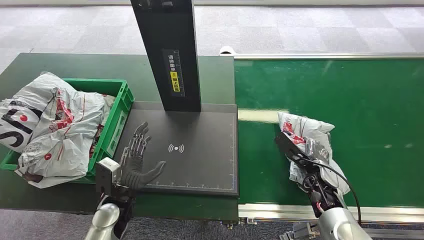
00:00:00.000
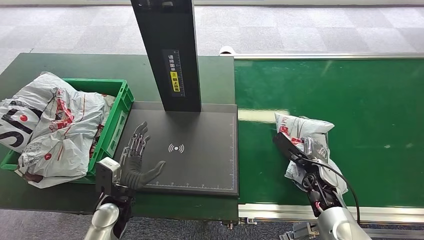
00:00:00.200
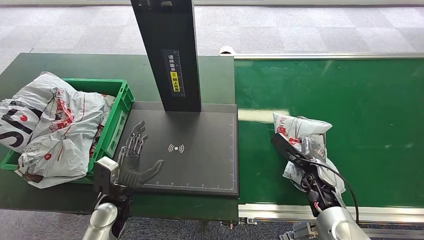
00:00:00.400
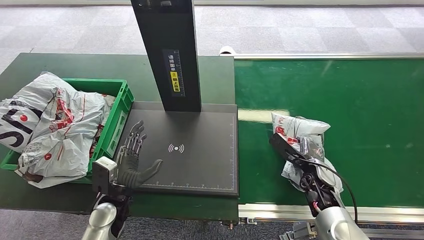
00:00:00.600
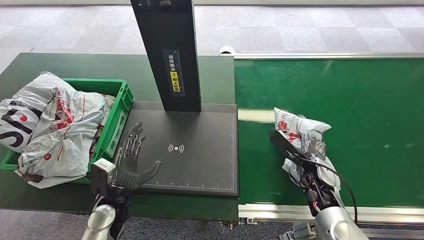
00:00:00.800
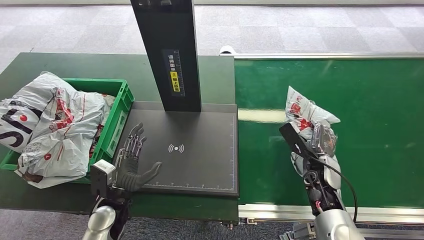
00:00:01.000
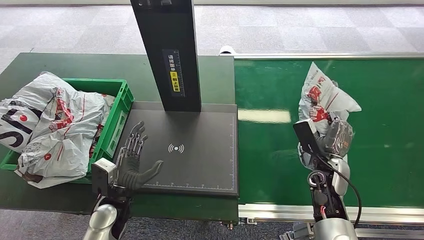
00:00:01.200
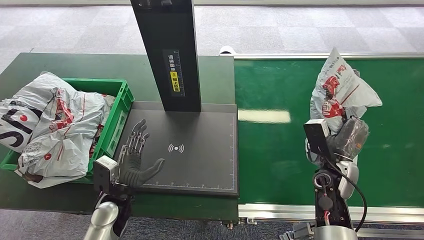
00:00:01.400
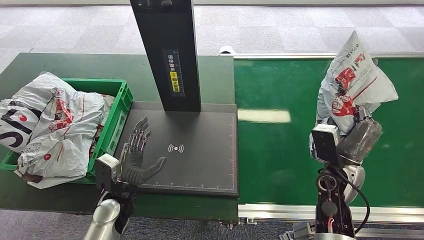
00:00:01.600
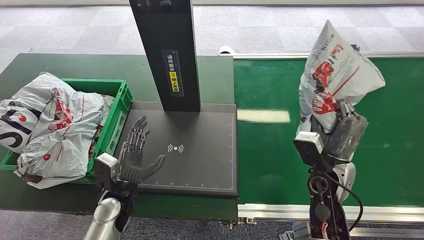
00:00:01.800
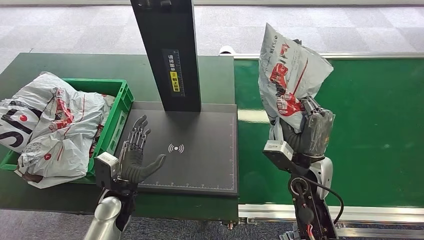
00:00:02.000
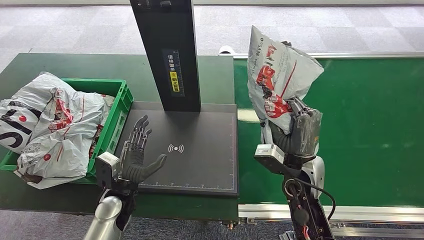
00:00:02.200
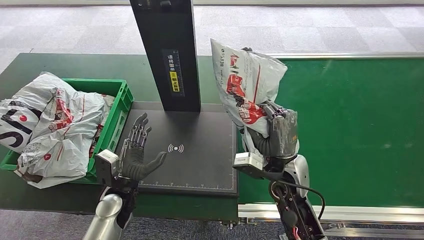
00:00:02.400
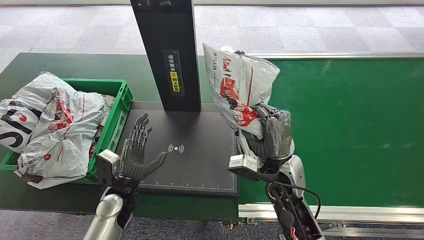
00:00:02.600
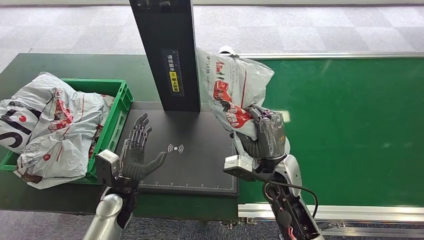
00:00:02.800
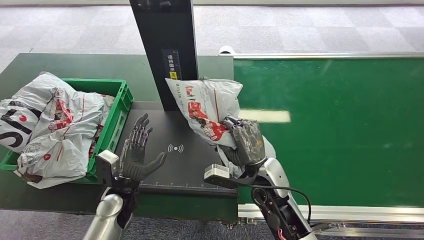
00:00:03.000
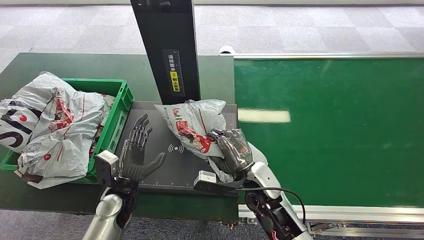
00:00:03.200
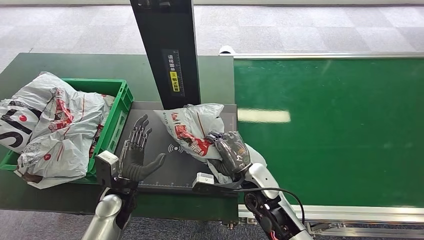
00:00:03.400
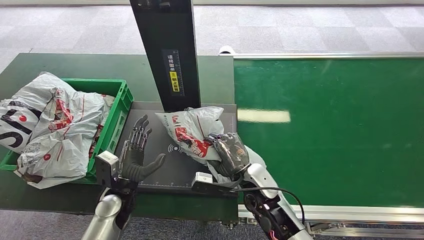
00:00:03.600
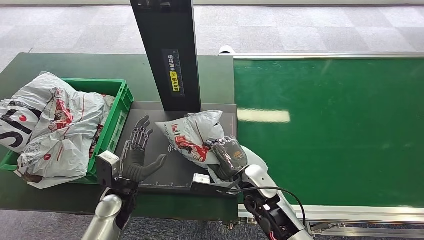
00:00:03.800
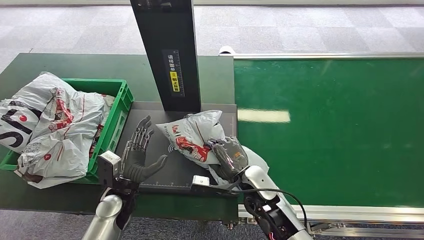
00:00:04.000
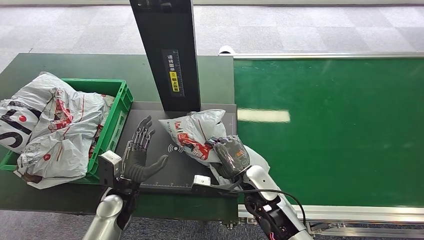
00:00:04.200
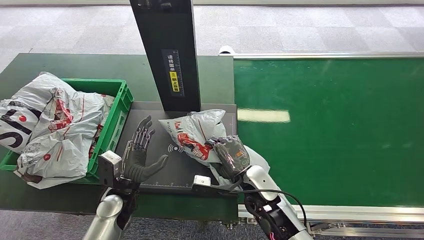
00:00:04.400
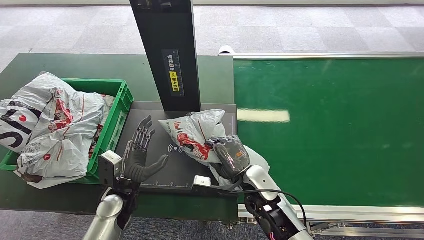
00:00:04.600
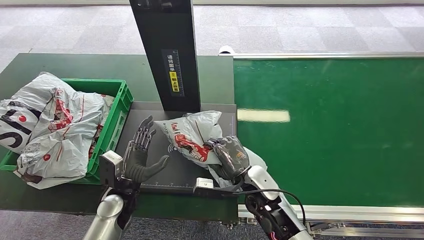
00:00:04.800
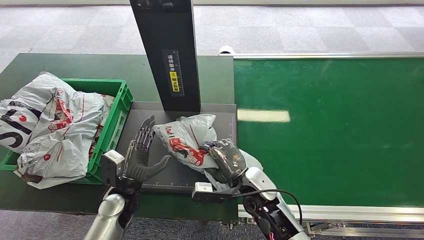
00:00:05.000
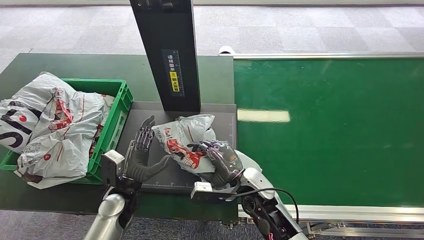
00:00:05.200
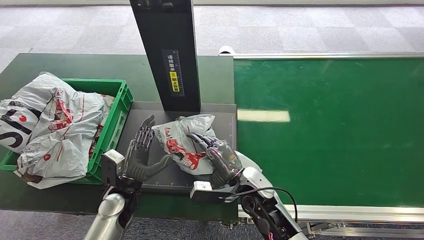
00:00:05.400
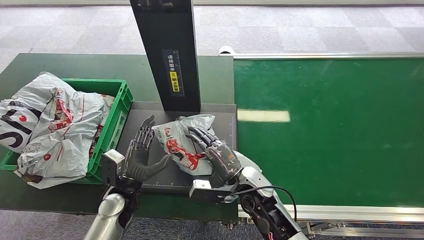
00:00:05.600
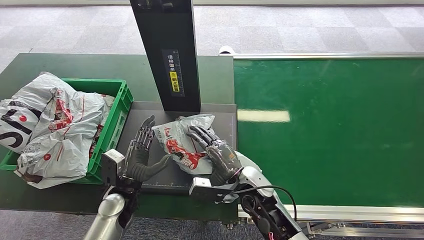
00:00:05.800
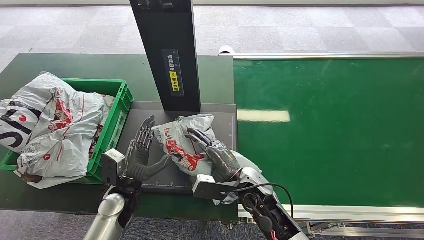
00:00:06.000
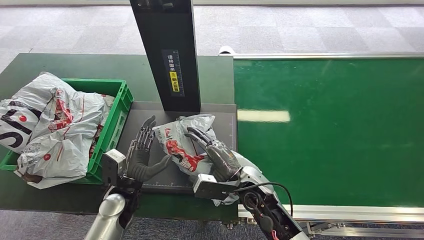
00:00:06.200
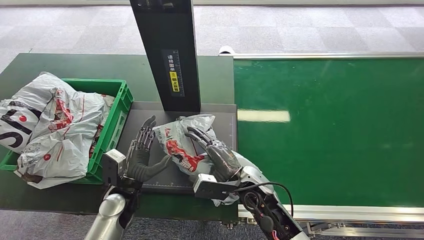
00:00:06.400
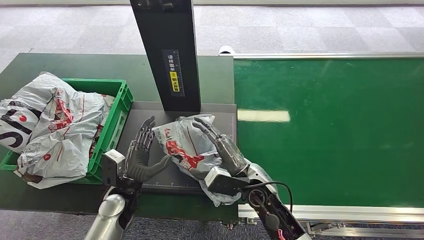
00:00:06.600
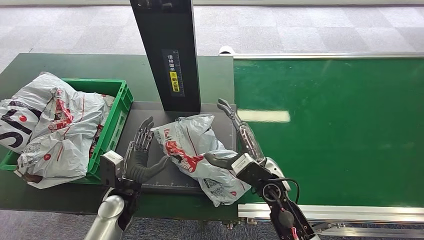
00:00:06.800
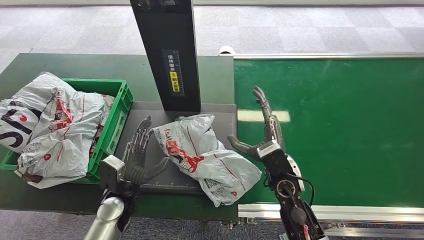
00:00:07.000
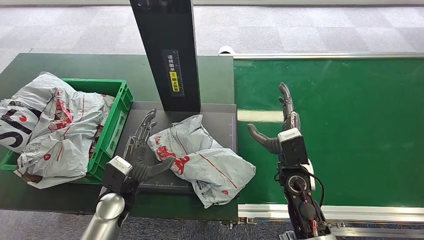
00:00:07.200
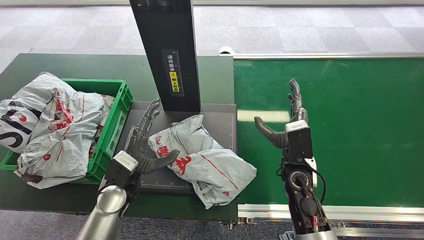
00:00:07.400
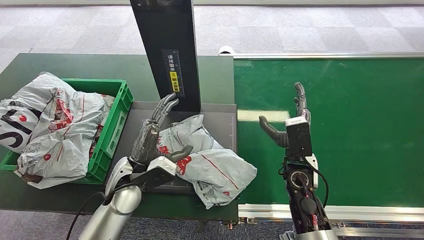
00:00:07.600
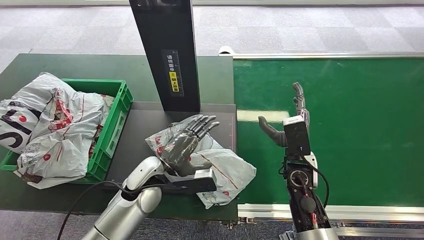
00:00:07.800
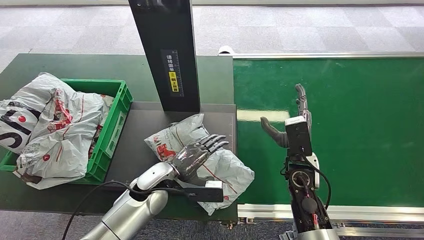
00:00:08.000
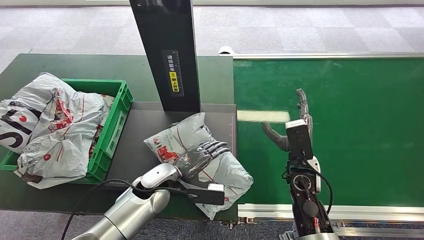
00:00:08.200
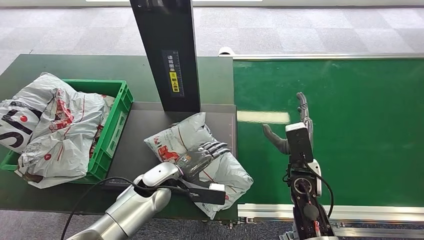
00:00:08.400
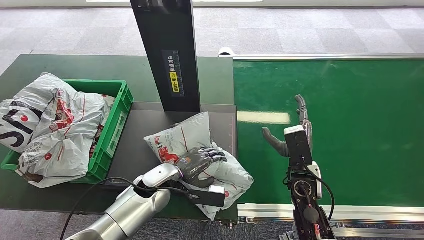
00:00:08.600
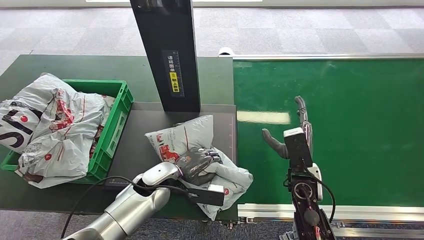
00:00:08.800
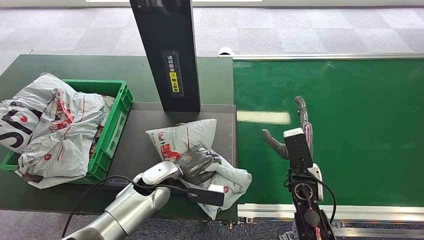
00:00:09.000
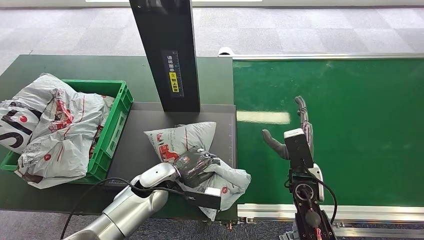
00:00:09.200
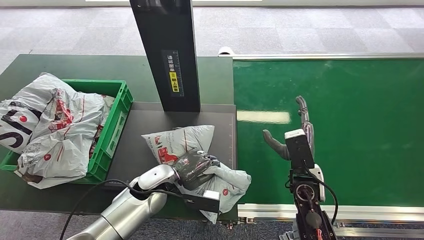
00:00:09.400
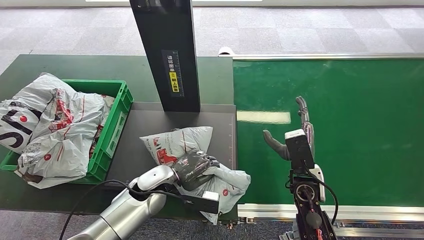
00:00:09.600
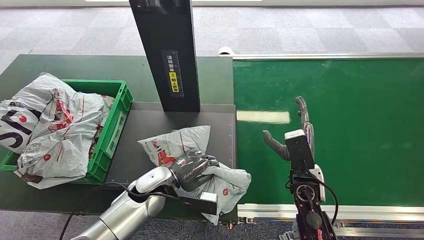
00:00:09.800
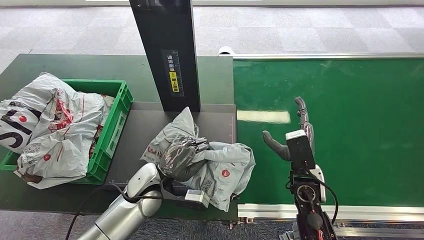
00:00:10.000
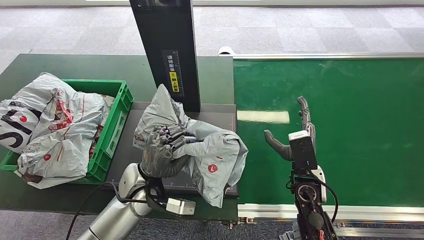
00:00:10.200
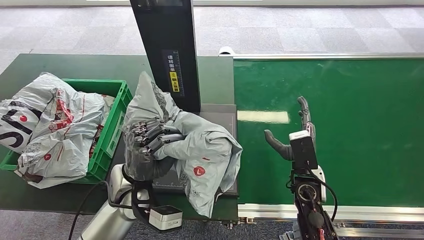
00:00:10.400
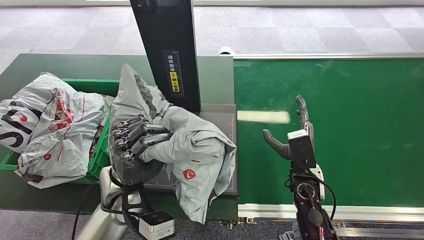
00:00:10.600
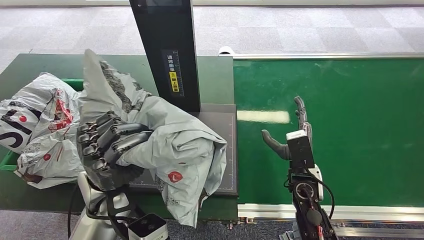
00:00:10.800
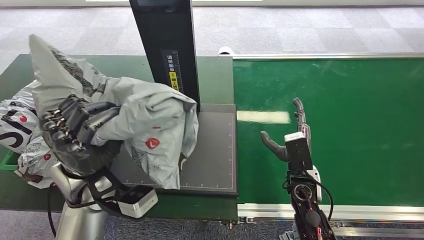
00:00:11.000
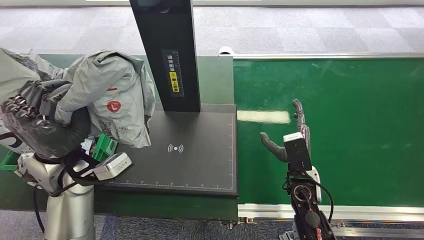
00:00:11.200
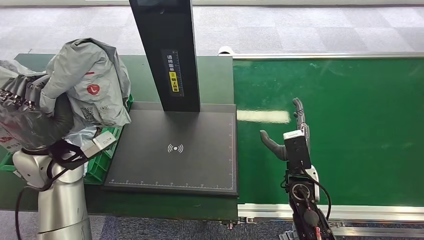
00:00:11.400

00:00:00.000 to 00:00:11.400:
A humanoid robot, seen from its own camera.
Step, 00:00:00.000 to 00:00:01.400: Pick up the package from the conveyor belt.
Step, 00:00:01.600 to 00:00:07.000: Place the package onto the inbound machine.
Step, 00:00:07.200 to 00:00:10.800: Pick up the package from the inbound machine.
00:00:01.400 to 00:00:02.800: The right hand goes approximately 15 cm to the left.
00:00:02.800 to 00:00:04.200: The right hand moves downward, about 5 cm.
00:00:04.200 to 00:00:05.600: The hands make only small movements.
00:00:05.600 to 00:00:07.200: The right hand travels to the right by some 10 cm.
00:00:07.200 to 00:00:08.600: The left hand travels to the right by roughly 10 cm.

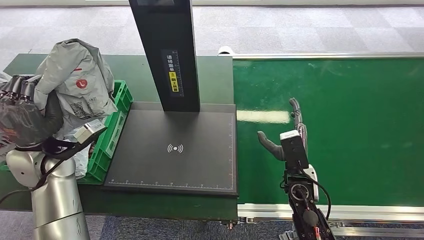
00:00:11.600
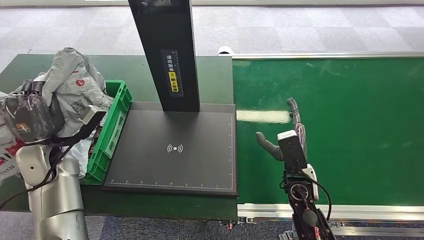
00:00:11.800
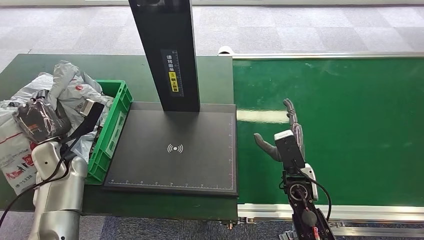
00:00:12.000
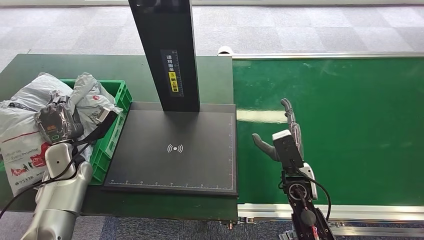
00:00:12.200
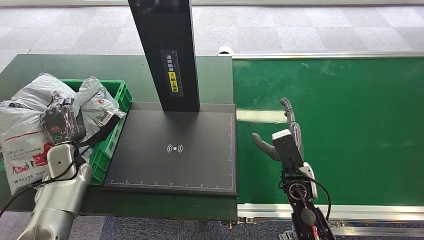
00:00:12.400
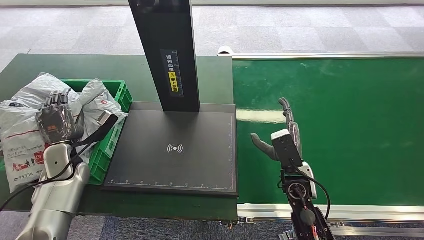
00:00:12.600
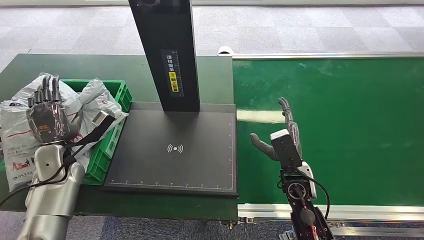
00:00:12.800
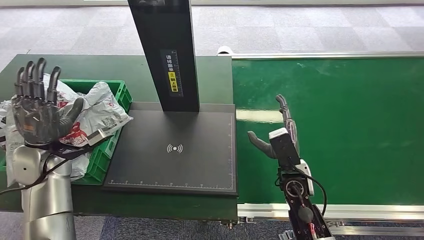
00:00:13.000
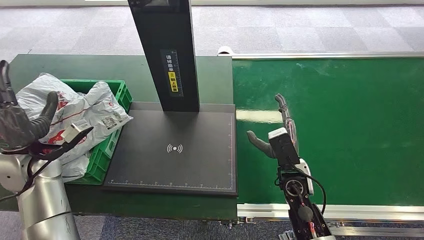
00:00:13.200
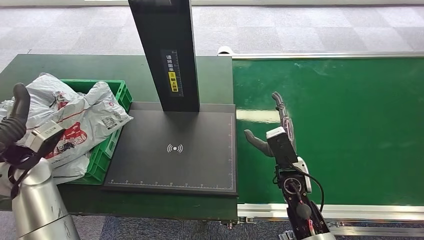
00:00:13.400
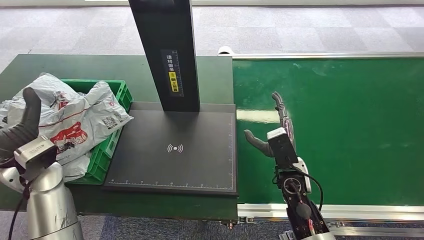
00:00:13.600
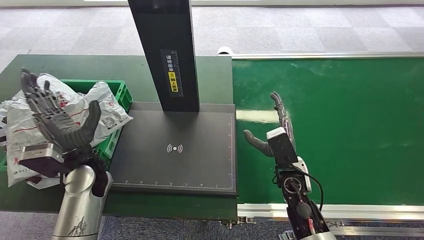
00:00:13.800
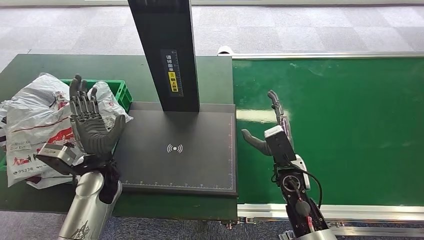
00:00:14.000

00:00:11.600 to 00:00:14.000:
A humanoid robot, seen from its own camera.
Step, 00:00:11.600 to 00:00:14.000: Place the package into the parcel locker.
00:00:11.600 to 00:00:12.800: The left hand goes roughly 10 cm downward.
00:00:12.800 to 00:00:14.000: The left hand is displaced to the right by approximately 15 cm.
